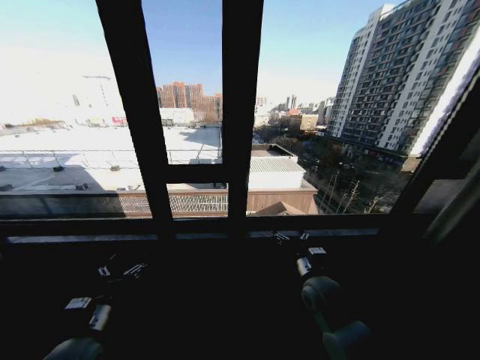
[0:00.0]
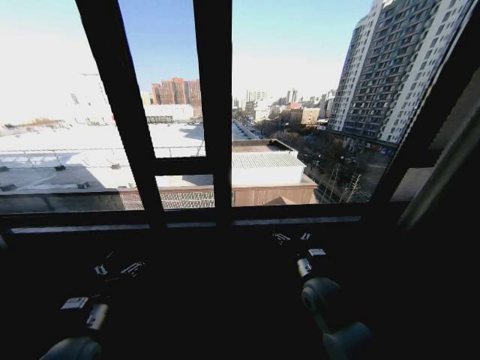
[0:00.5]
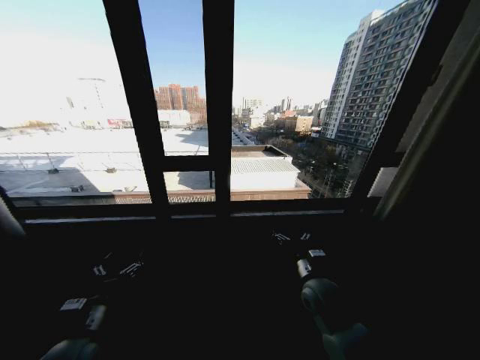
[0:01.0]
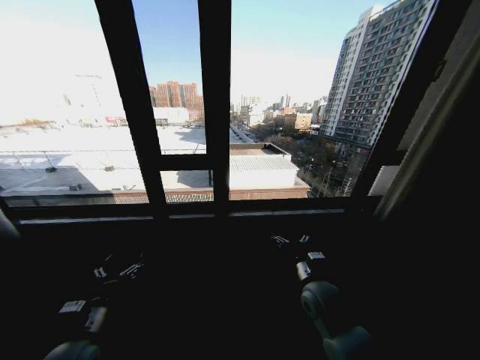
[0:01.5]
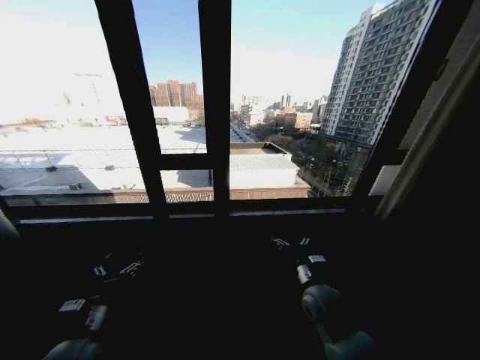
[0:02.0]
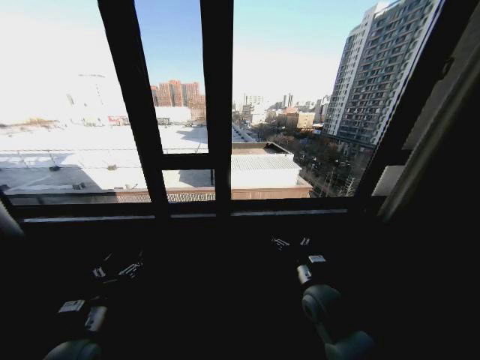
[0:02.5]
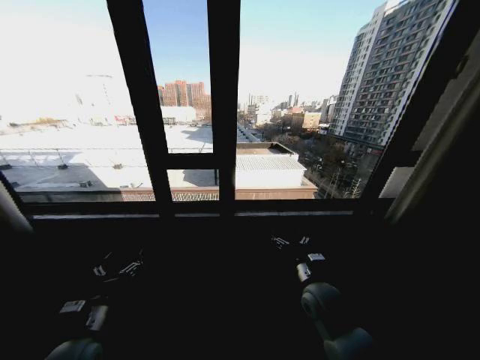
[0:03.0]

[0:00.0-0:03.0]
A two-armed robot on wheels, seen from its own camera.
Task of the whole recording: Open the curtains by pulling them apart, changing their state from closed to fully open.
0:01.5 to 0:03.0: The two grippers keep their place.
